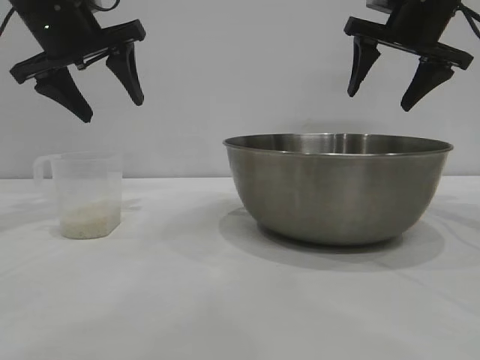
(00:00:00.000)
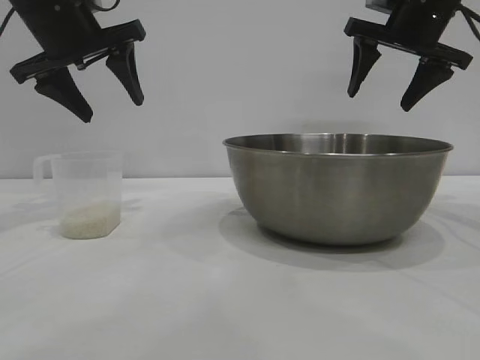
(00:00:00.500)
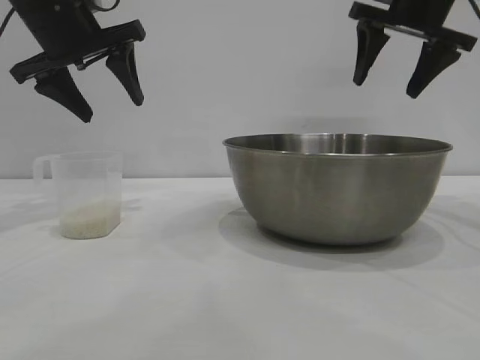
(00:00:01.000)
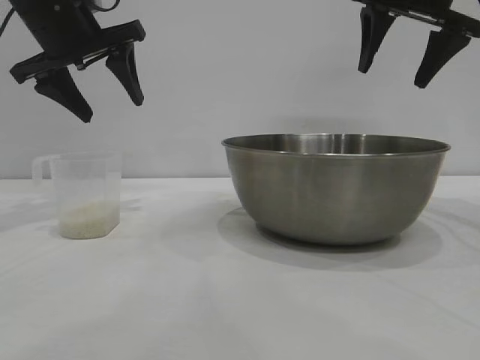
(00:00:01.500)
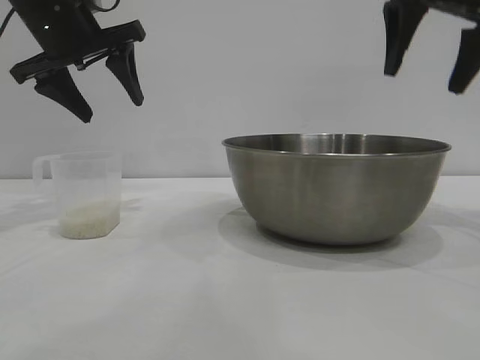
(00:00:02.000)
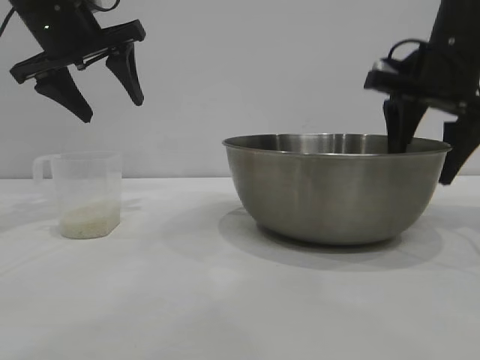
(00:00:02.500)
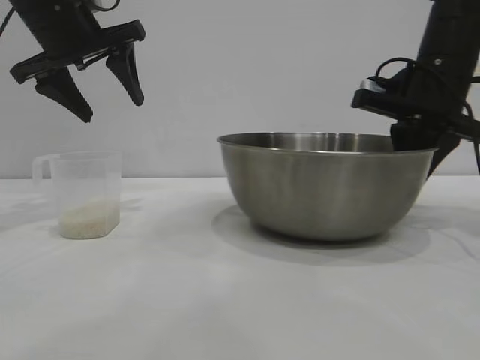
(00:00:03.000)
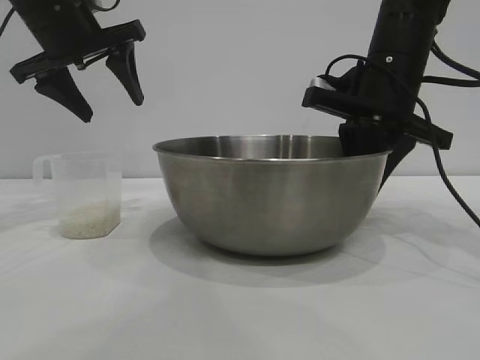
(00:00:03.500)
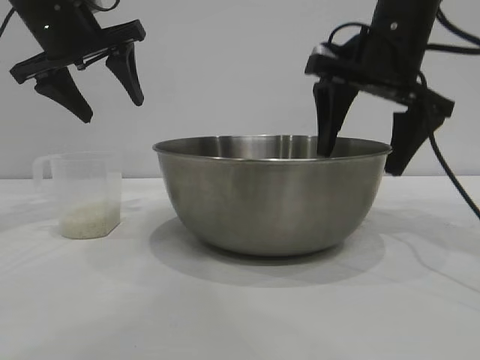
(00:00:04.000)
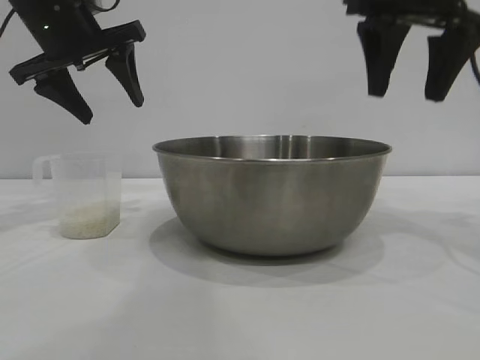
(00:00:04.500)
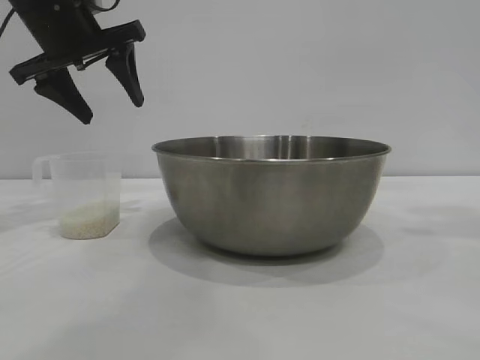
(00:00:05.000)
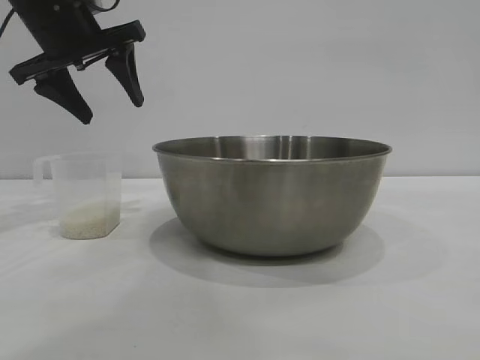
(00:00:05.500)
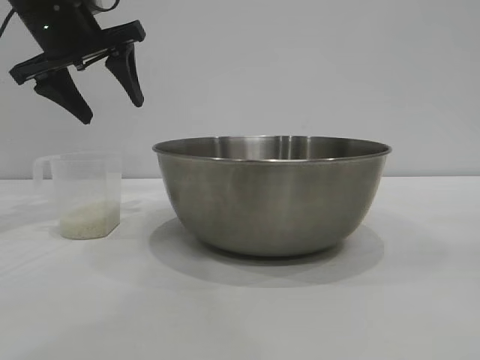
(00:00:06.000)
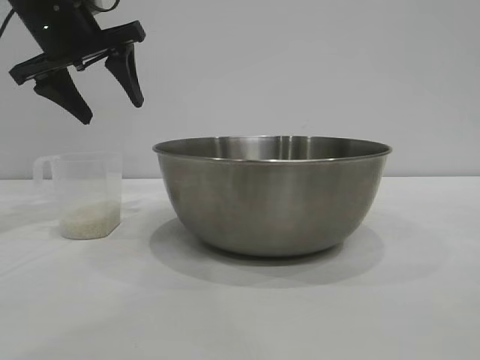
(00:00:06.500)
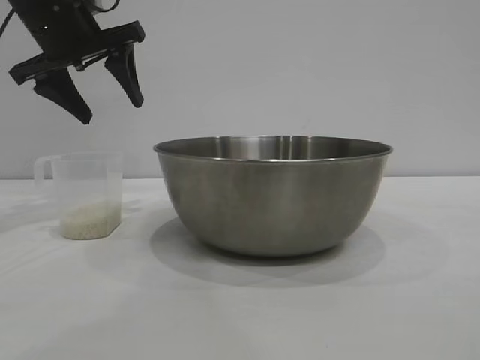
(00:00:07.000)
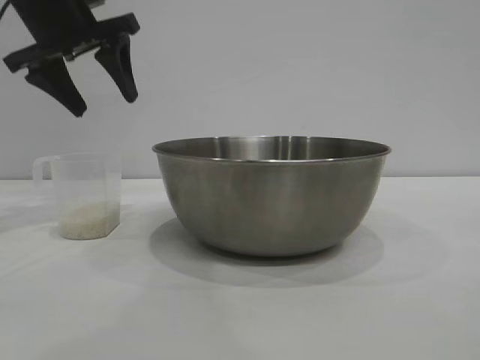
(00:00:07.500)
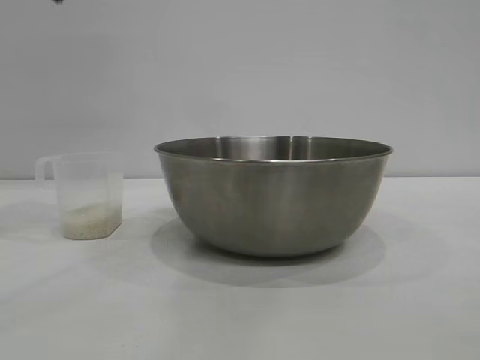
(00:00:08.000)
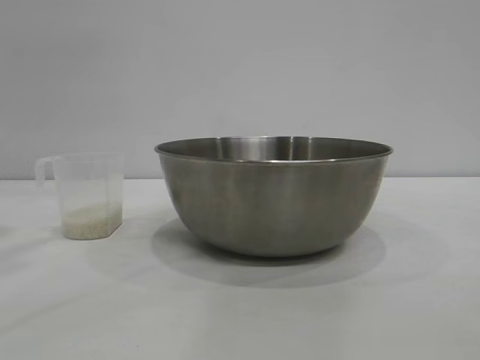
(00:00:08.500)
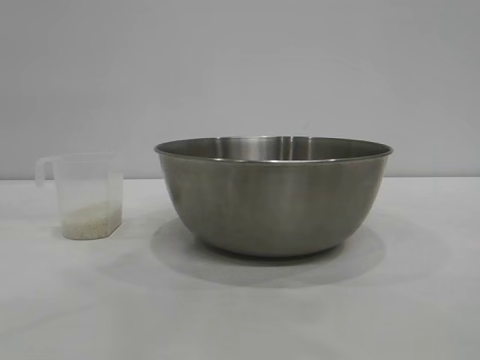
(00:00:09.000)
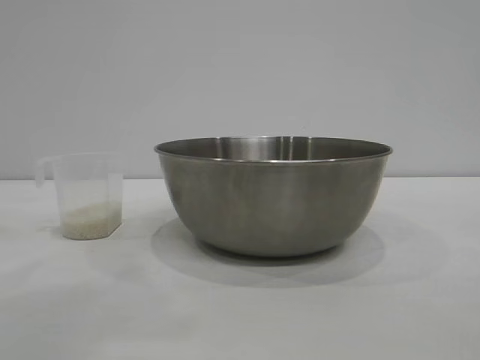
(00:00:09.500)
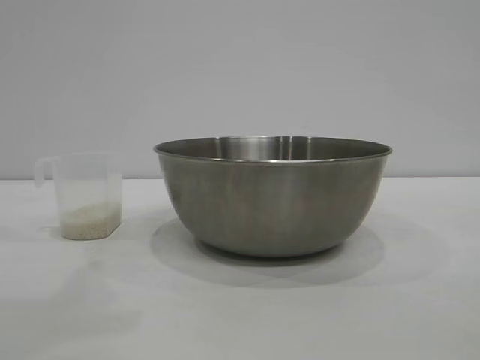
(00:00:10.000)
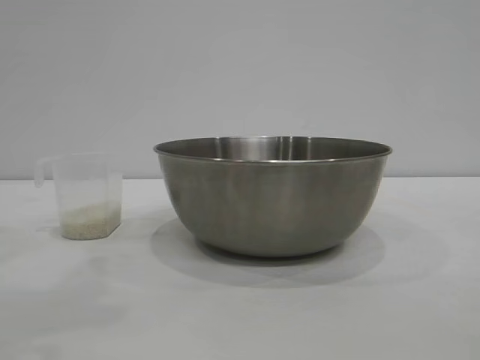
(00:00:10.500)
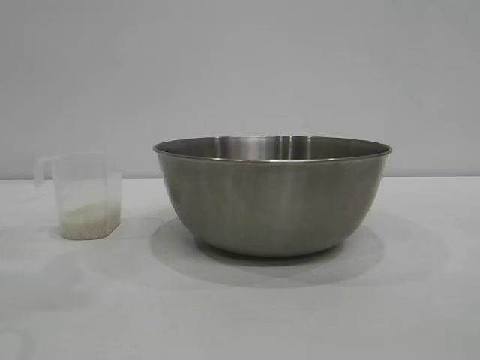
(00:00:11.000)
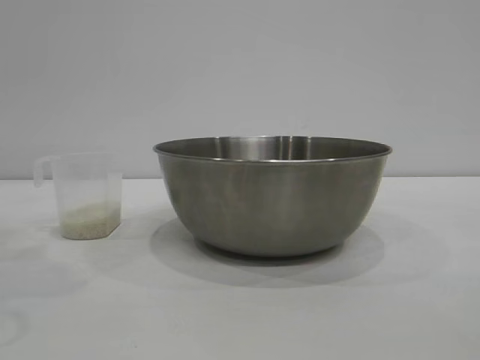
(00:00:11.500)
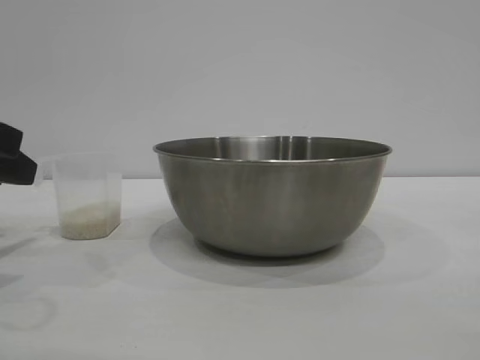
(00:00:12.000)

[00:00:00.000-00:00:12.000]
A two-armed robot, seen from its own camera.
Task of the whole recording: the right gripper grasp the rice container and place it in the center of the table, the left gripper grasp the rice scoop and pour the rice into the rice container.
Step, 00:00:00.000 to 00:00:03.500: Move the bowl to the center of view with the right gripper.

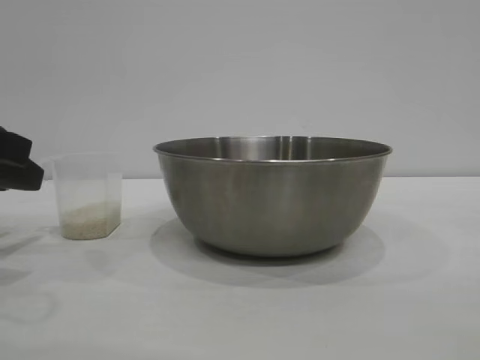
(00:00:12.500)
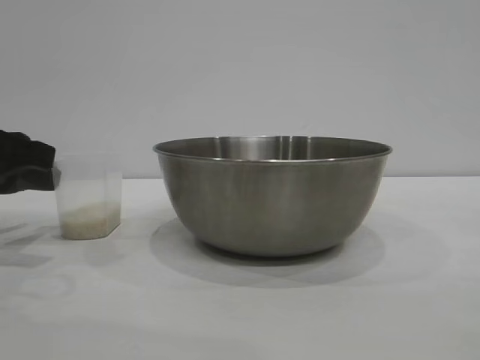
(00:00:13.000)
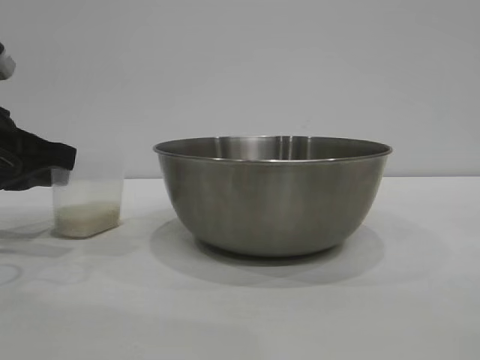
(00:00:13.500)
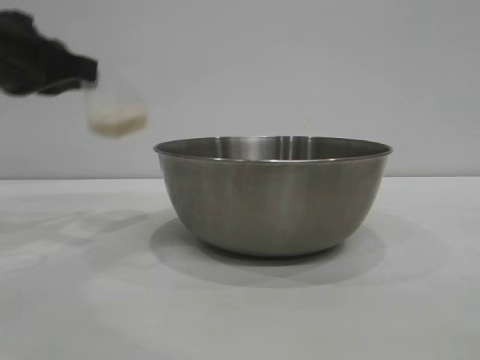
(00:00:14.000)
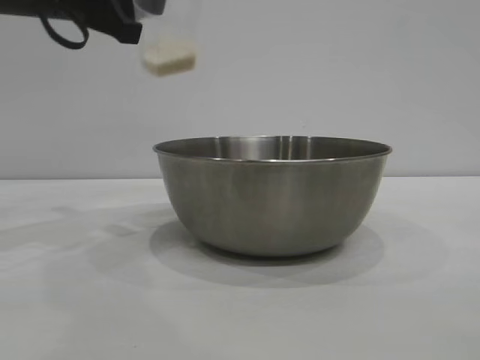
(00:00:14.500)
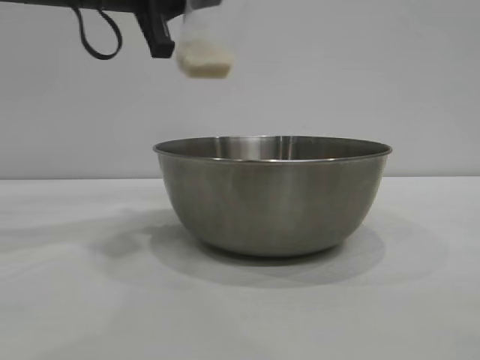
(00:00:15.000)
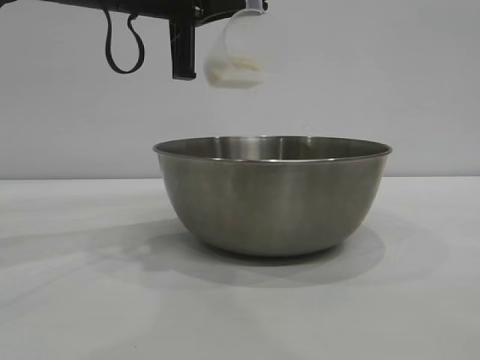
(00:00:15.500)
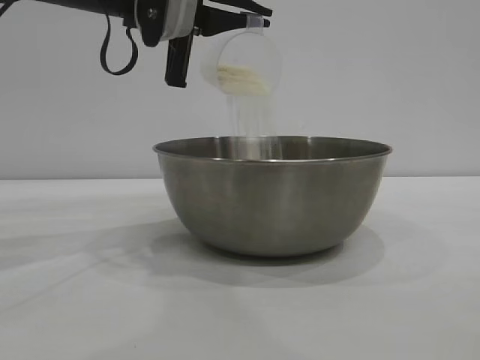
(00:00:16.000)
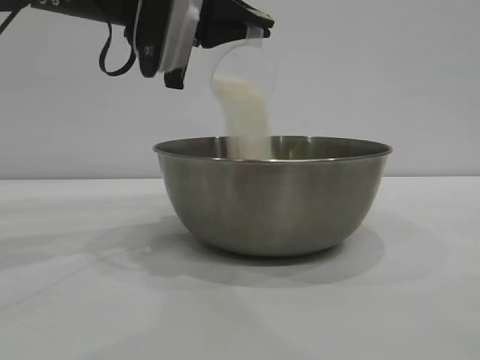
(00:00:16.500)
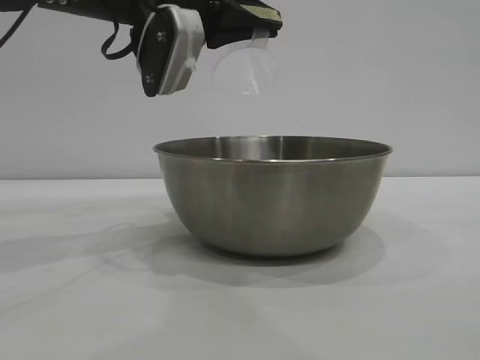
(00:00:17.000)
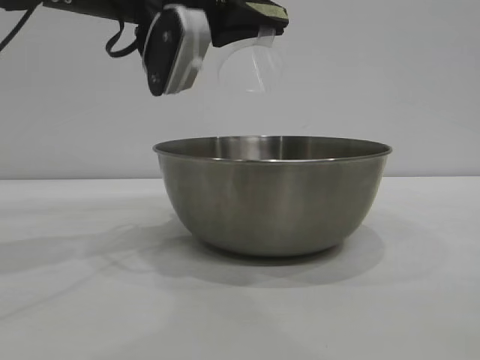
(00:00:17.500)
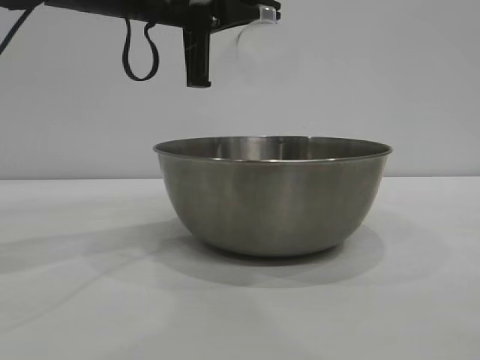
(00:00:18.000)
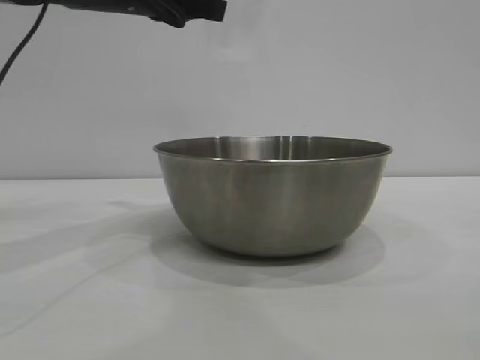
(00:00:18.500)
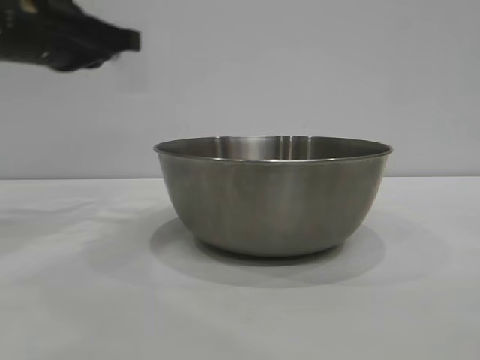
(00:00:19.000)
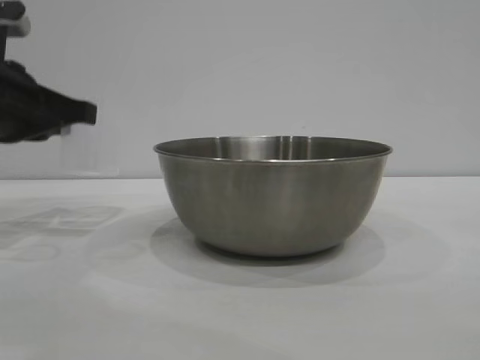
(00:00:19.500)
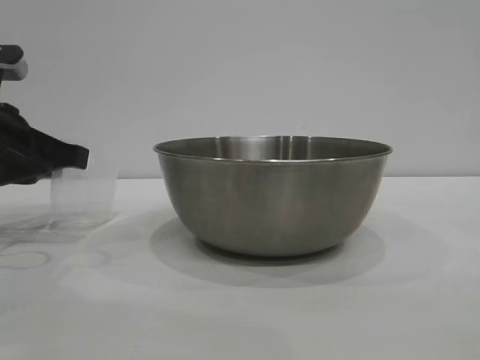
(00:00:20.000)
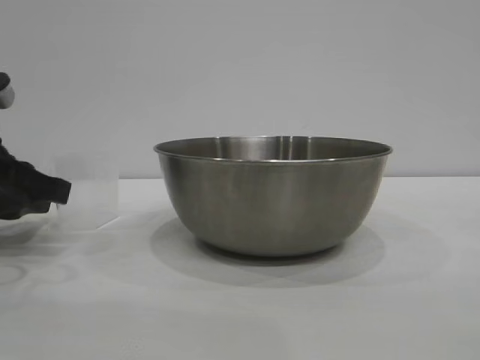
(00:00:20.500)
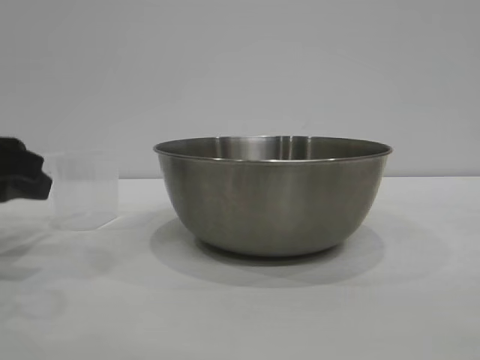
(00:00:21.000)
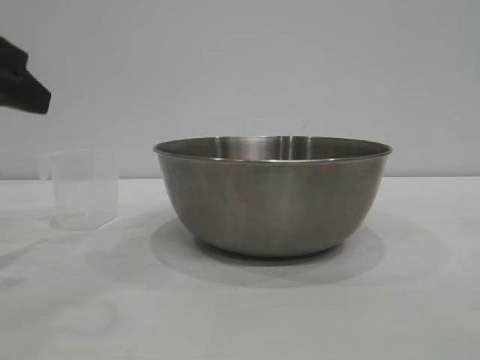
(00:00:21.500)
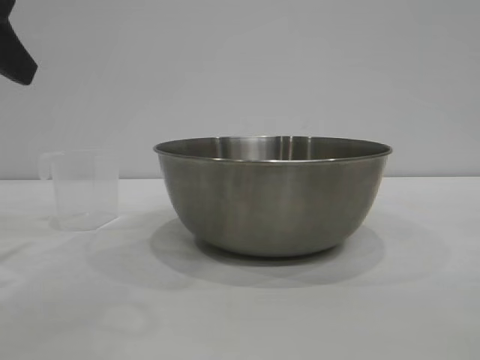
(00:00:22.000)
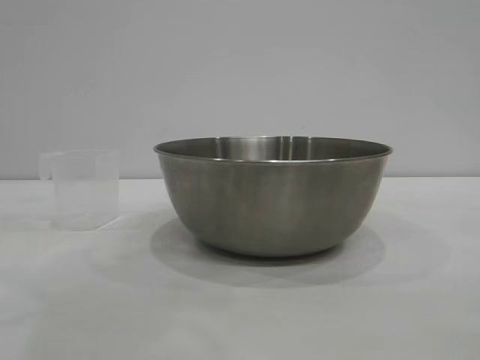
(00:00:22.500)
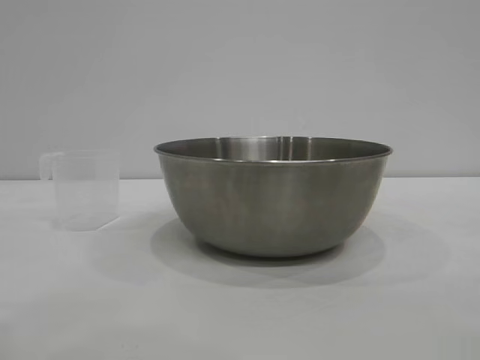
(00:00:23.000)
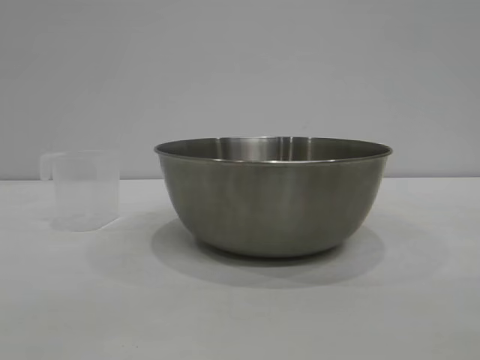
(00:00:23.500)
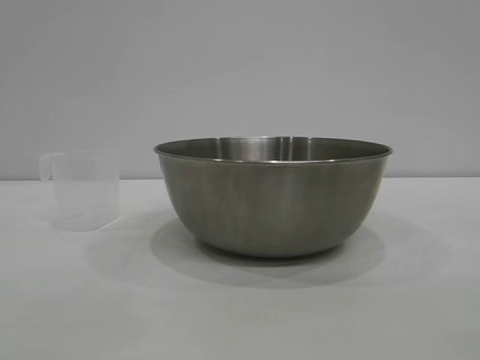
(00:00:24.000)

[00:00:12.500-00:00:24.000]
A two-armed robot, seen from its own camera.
Task of the whole recording: the right gripper grasp the rice container and place it in the center of the table, the left gripper grasp the rice scoop and pour the rice into the rice container.
Step, 00:00:14.000 to 00:00:17.500: Pour the rice from the cup into the bowl with the left gripper.
Step, 00:00:18.000 to 00:00:21.000: Place the cup on the table with the left gripper.
